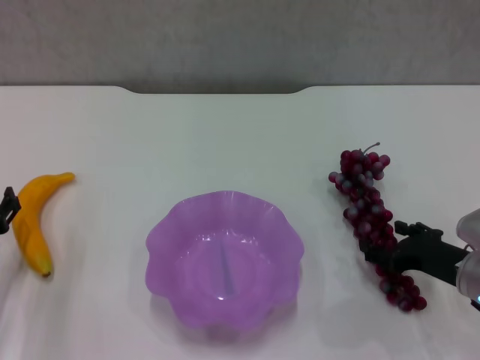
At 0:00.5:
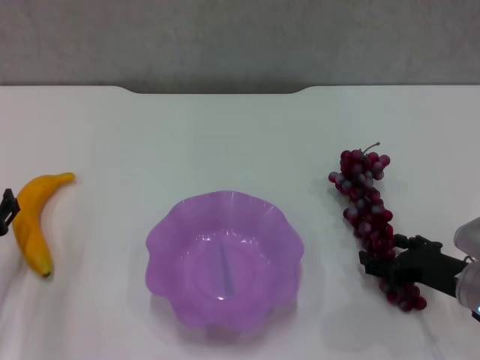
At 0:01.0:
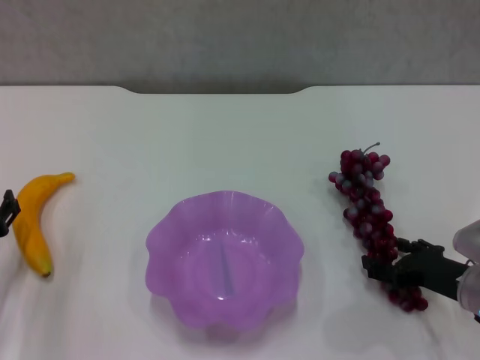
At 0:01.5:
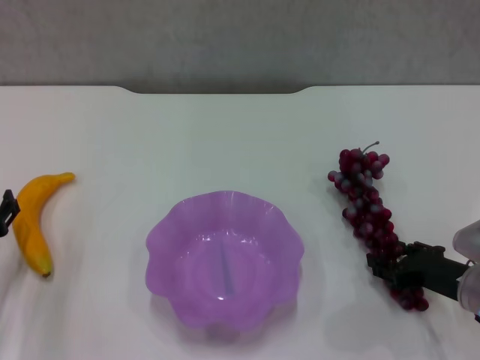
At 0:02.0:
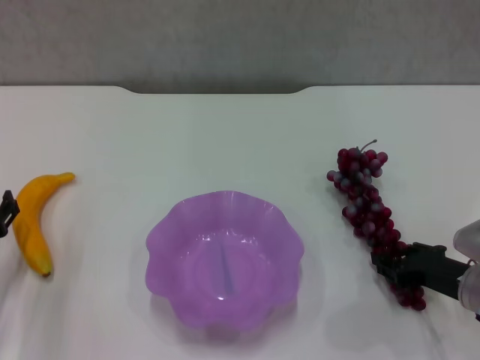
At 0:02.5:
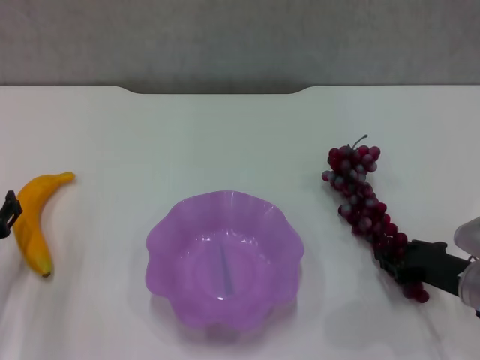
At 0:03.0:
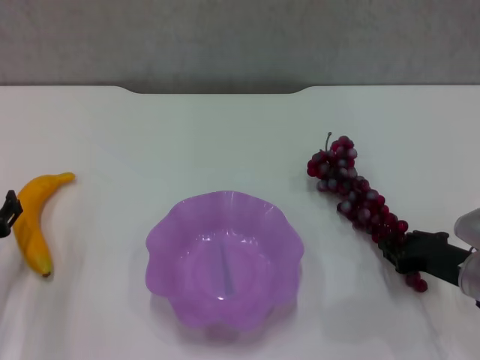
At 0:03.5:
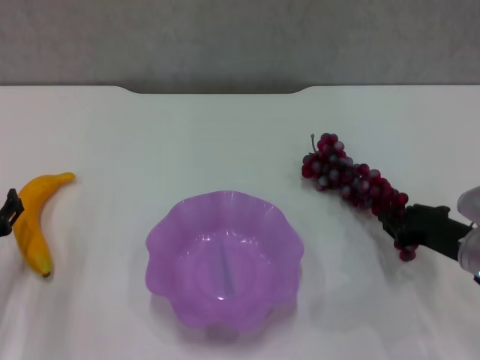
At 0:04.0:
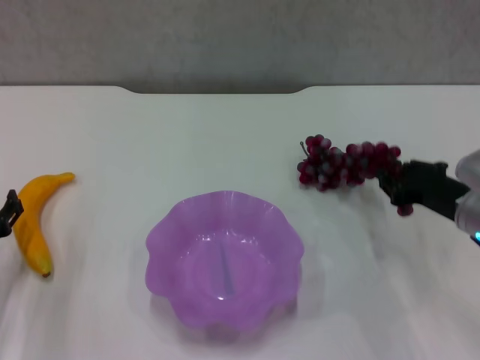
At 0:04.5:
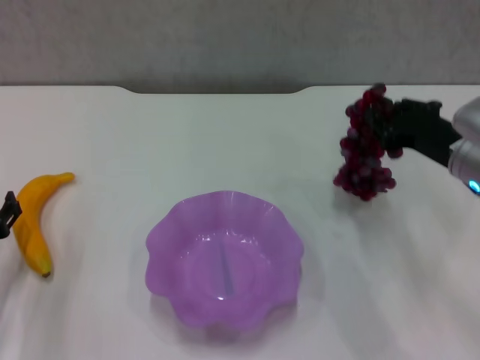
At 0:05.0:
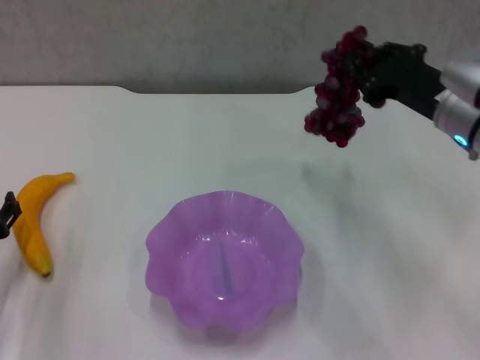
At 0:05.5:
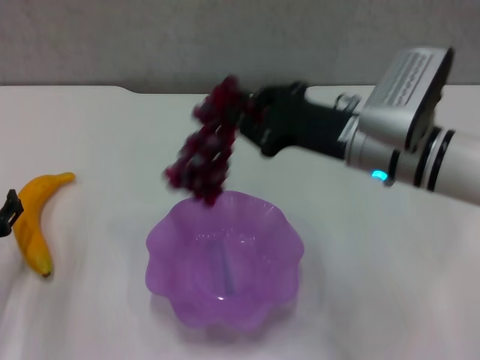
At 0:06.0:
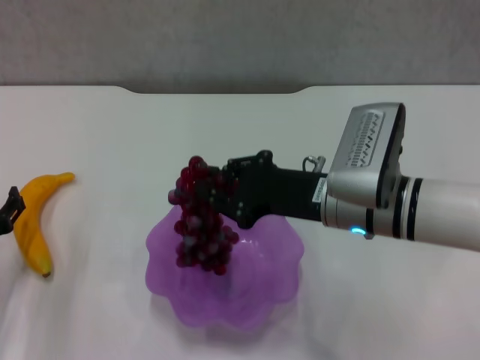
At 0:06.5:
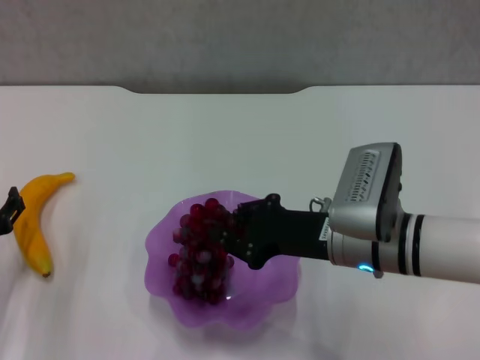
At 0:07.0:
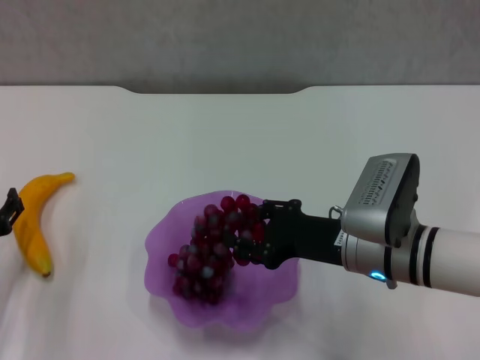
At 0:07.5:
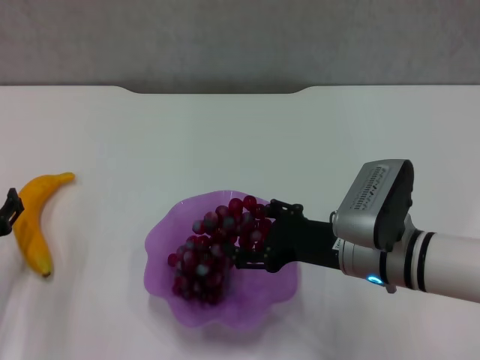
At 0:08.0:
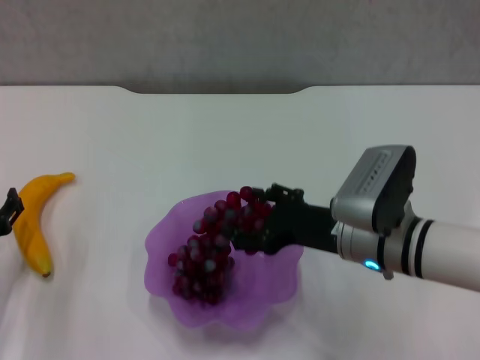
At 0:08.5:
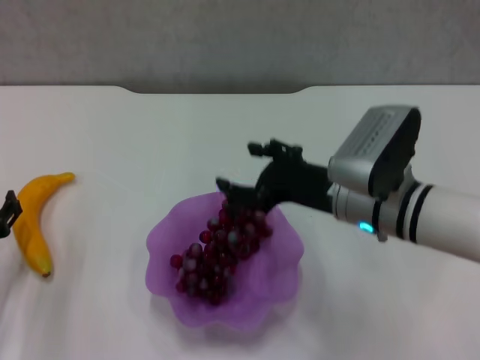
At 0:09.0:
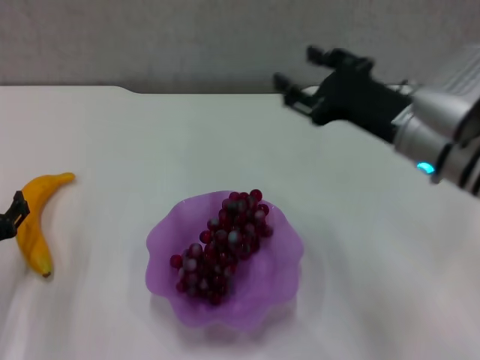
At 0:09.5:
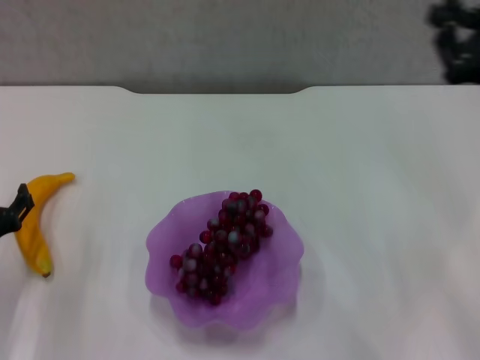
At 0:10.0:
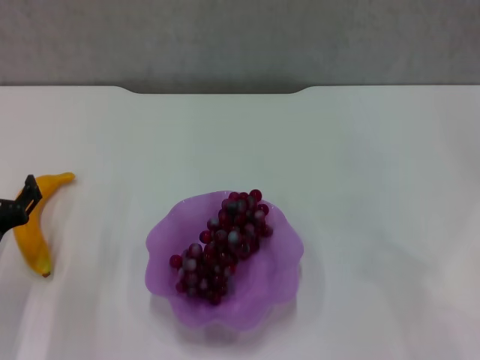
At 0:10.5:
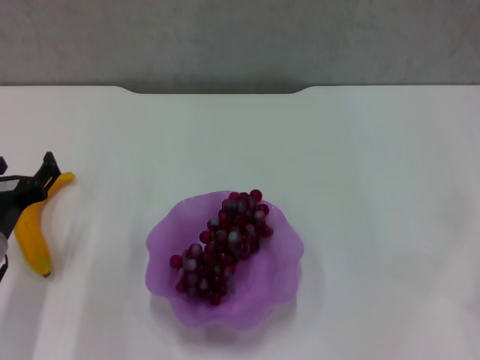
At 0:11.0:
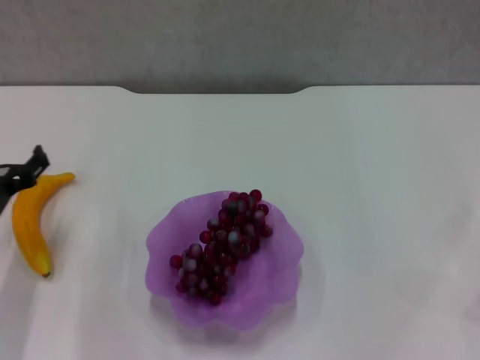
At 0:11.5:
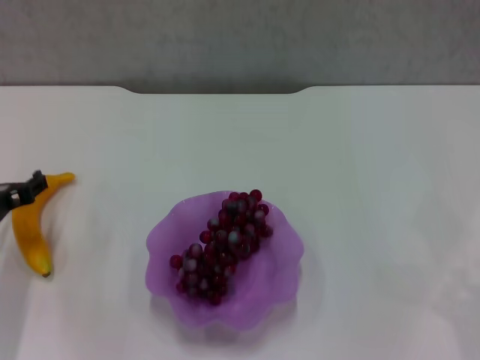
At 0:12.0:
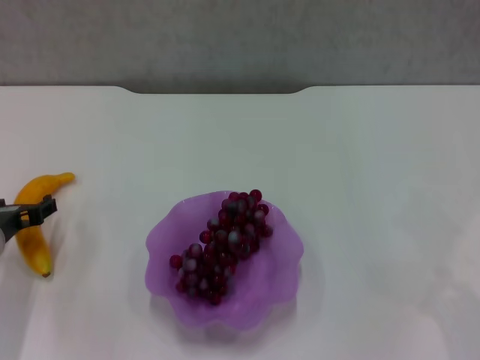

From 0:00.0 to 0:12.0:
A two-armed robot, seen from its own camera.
Step, from 0:00.0 to 0:02.0: Grasp the grape with right gripper.
Step, from 0:02.5 to 0:08.5: Place the grape in the purple plate with right gripper.
From 0:00.0 to 0:02.0: The right gripper closes its fingers.
From 0:02.0 to 0:04.0: The right gripper heads upward and forward, covering approximately 10 cm.
From 0:04.0 to 0:06.0: The right gripper is displaced to the left by about 15 cm.
From 0:06.0 to 0:08.0: The right gripper opens its fingers.
From 0:08.0 to 0:10.0: The right gripper travels to the right by some 25 cm, and closes up.
From 0:10.0 to 0:12.0: The left gripper ends up about 5 cm from where it was.

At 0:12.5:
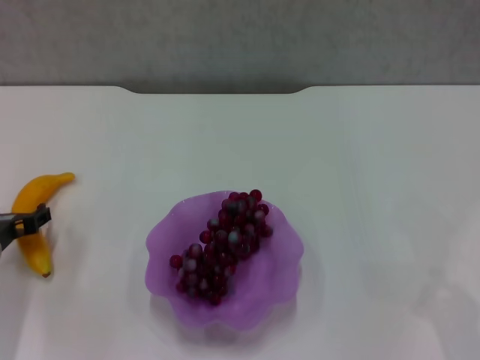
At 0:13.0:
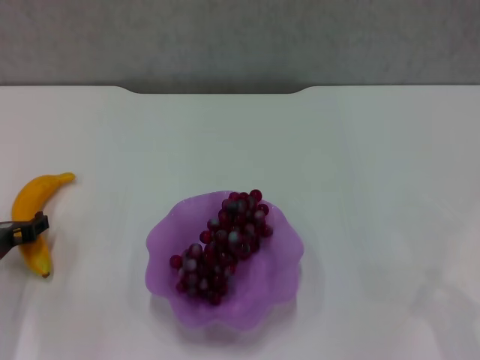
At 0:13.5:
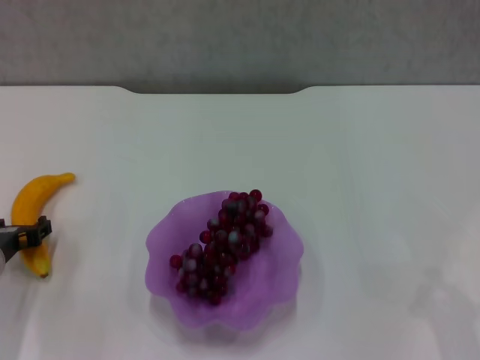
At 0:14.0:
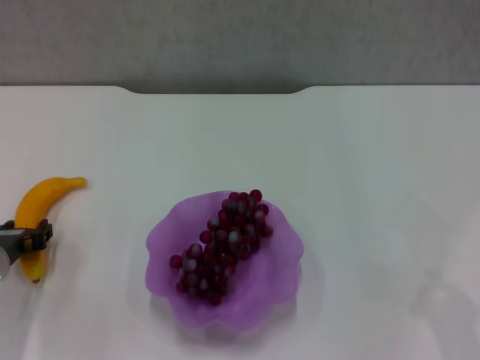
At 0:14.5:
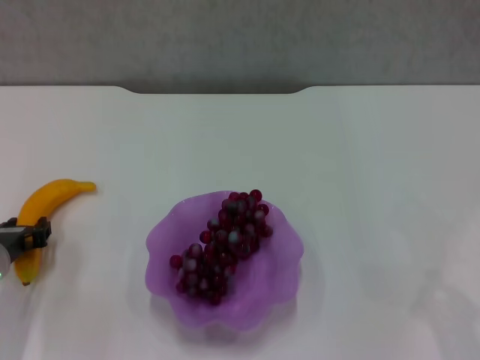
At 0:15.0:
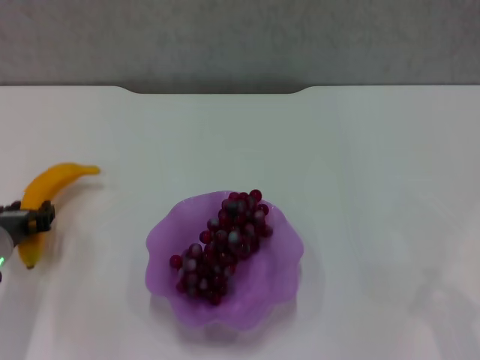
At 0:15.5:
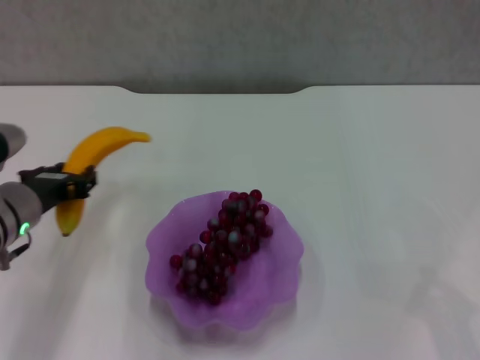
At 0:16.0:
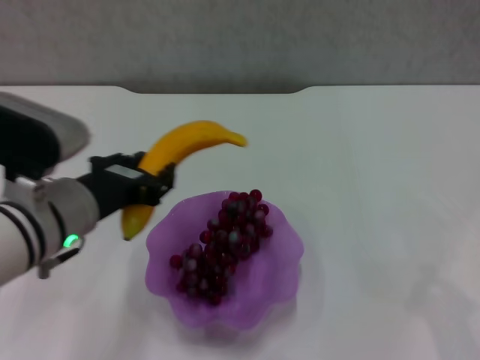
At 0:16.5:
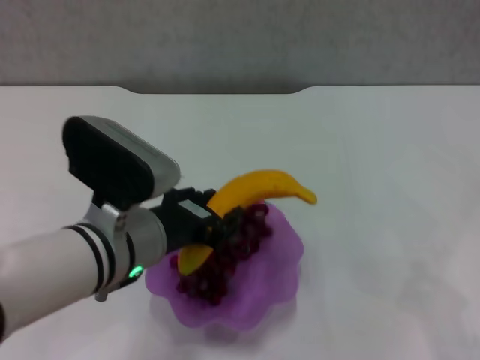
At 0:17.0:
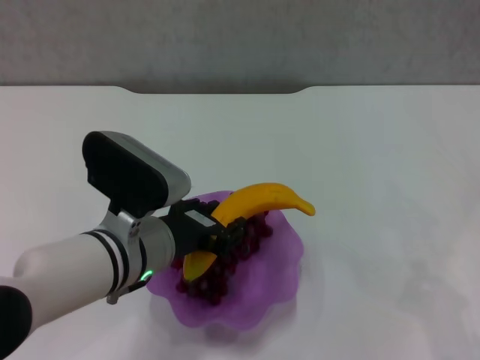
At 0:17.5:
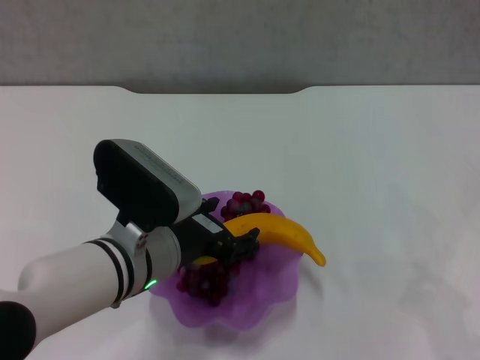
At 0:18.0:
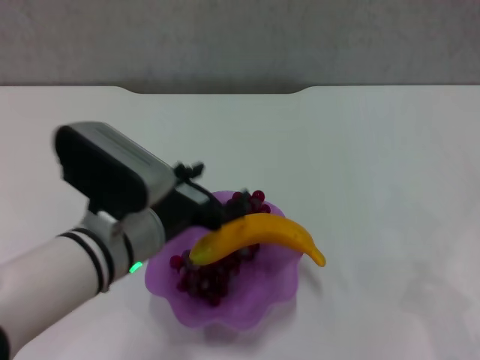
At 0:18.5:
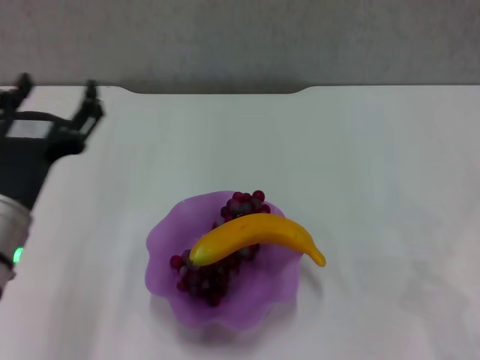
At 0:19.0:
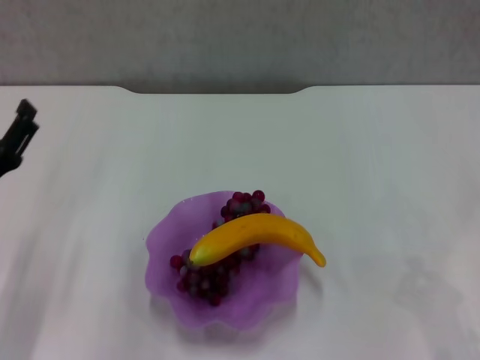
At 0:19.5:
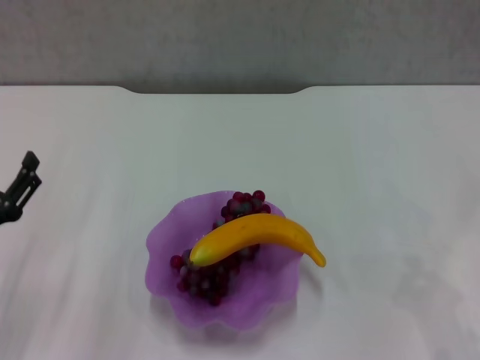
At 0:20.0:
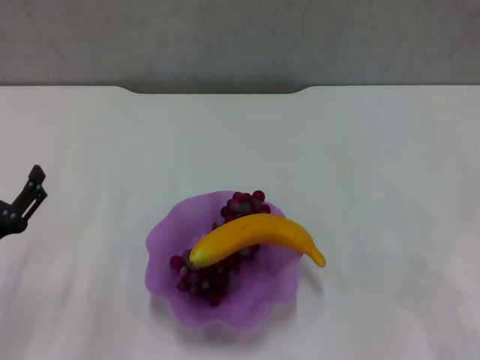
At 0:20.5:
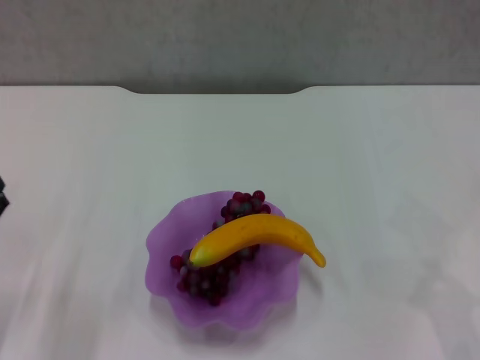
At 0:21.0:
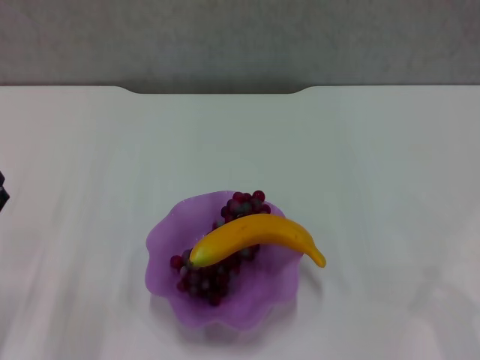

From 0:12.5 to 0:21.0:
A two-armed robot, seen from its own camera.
Step, from 0:14.5 to 0:17.5: Place the banana in the purple plate with left gripper.
From 0:12.5 to 0:14.5: The left gripper closes.
From 0:14.5 to 0:16.5: The left gripper goes about 20 cm to the right and upward.
From 0:16.5 to 0:19.0: The left gripper heads to the left, covering some 15 cm.
From 0:19.0 to 0:21.0: The left gripper goes approximately 5 cm downward.

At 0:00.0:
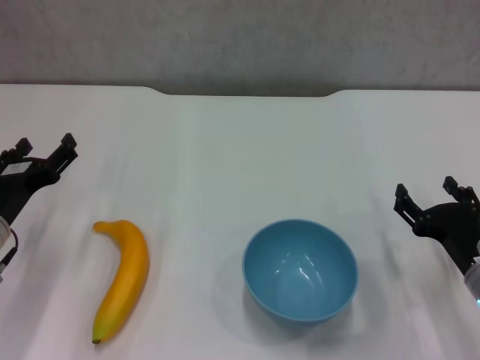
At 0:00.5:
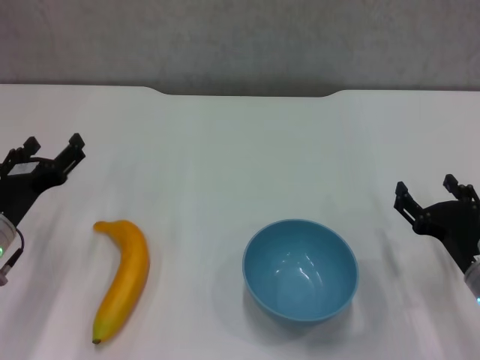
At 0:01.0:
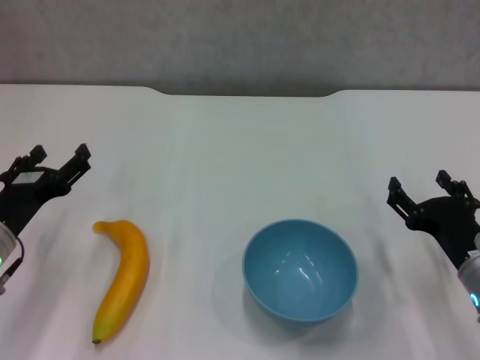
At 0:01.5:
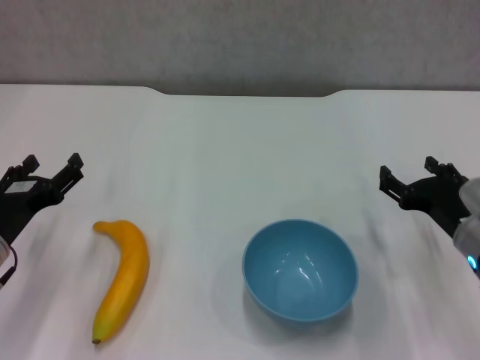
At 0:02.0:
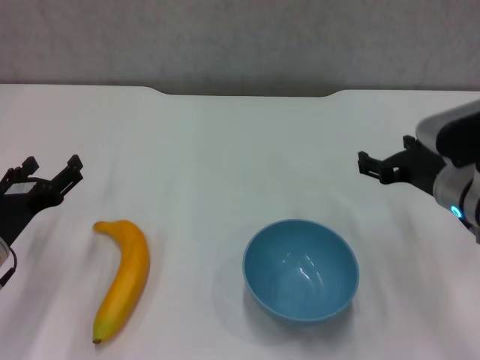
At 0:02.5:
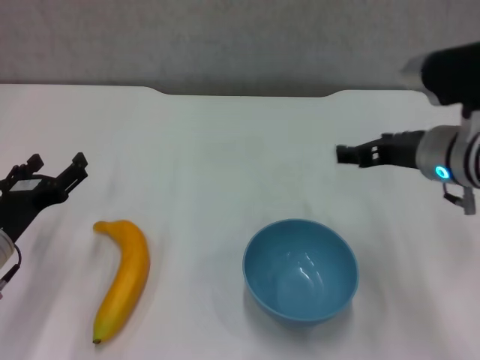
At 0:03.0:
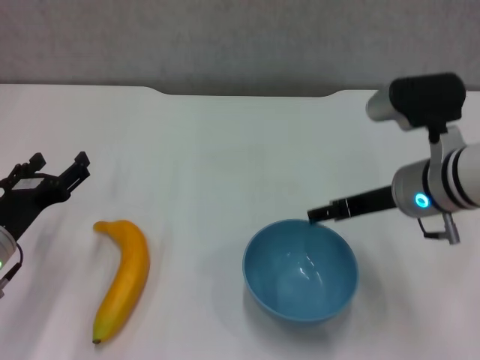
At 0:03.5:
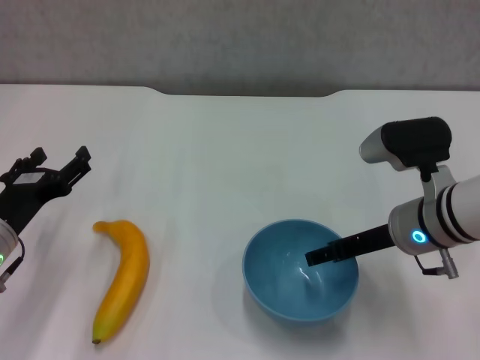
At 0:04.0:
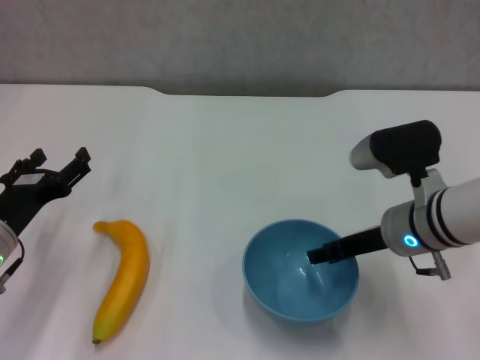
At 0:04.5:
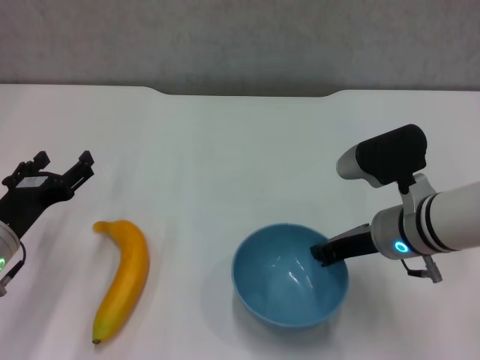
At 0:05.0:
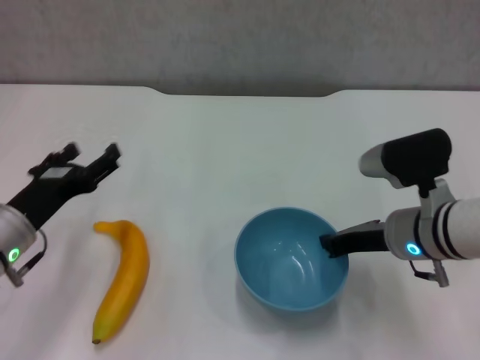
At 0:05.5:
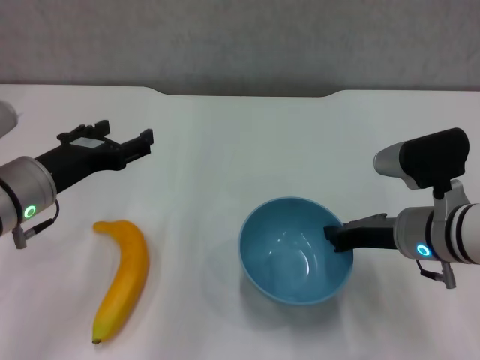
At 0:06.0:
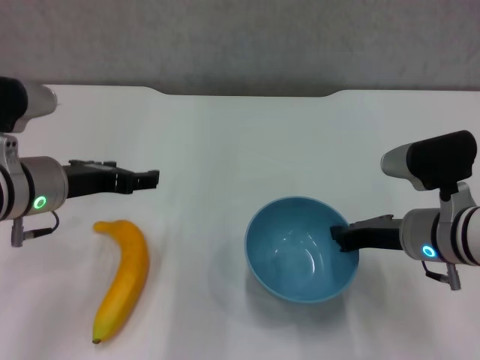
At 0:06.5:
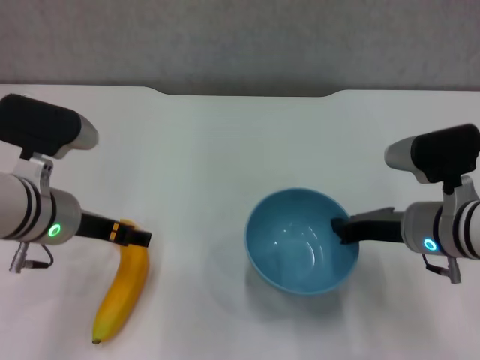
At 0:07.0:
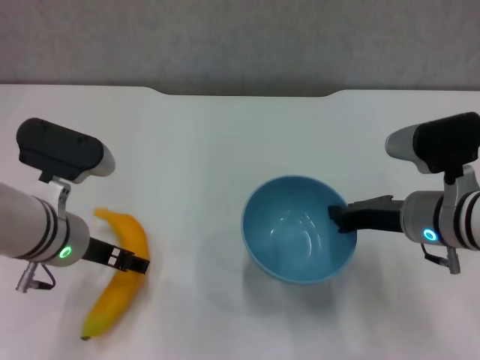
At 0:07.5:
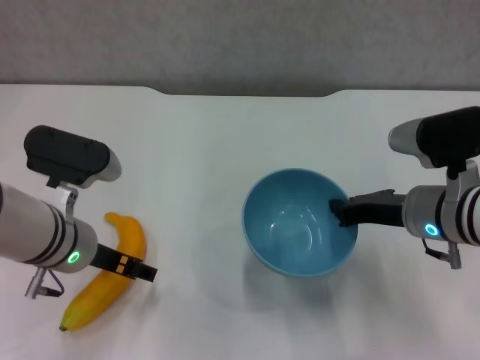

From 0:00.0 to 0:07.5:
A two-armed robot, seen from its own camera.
Step, from 0:00.0 to 0:04.5: Grasp the blue bowl with right gripper.
Step, from 0:05.0 to 0:06.5: Lift the blue bowl with right gripper.
From 0:00.0 to 0:02.0: The right gripper shifts about 10 cm upward and forward.
From 0:04.0 to 0:05.5: The right gripper closes up; the left gripper shifts approximately 5 cm upward.
